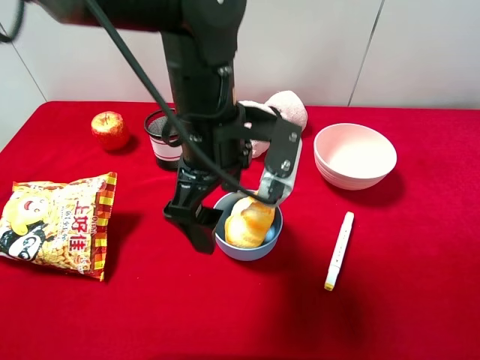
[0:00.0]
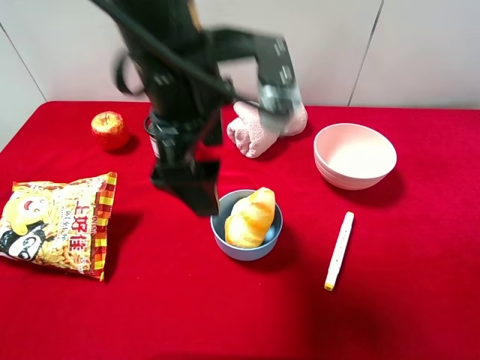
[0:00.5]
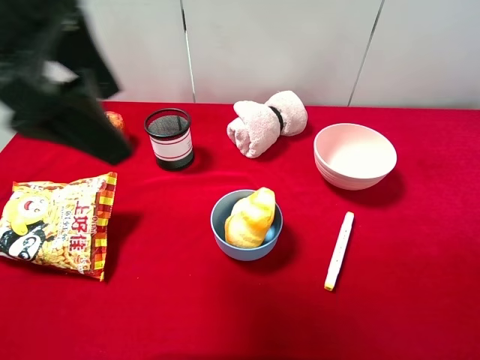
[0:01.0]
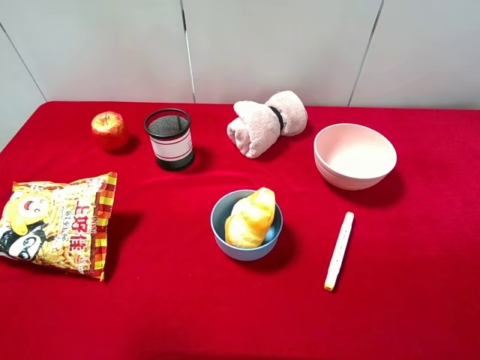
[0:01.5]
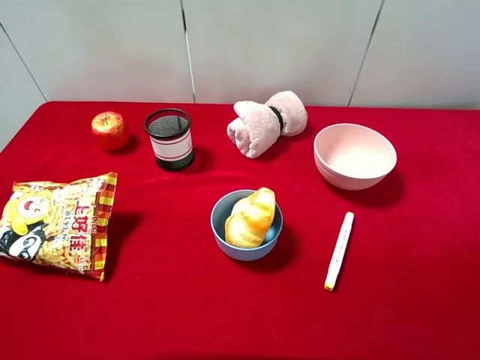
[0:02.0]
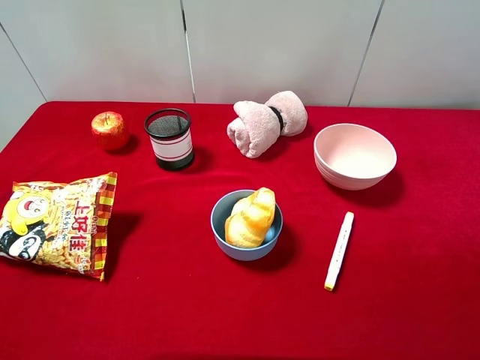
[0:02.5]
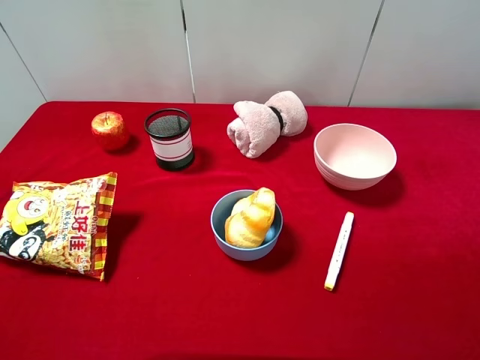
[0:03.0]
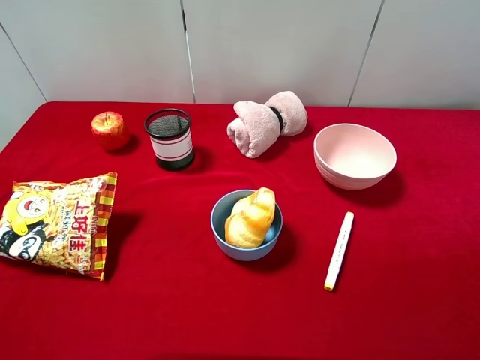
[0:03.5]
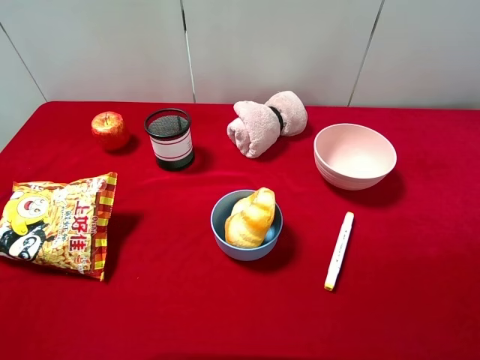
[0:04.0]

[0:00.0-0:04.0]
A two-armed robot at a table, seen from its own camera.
Task of the whole recording: pick up an item with a gripper and place it in a random container on the desktop.
0:00.0 to 0:02.0: The left gripper shifts some 40 cm to the left, backward and upward.
